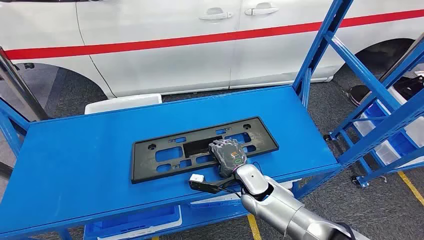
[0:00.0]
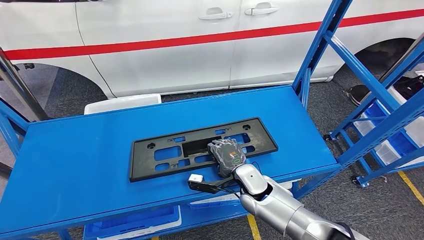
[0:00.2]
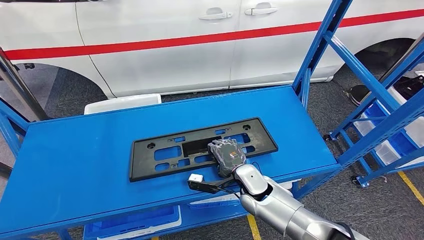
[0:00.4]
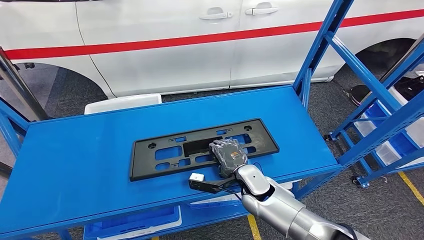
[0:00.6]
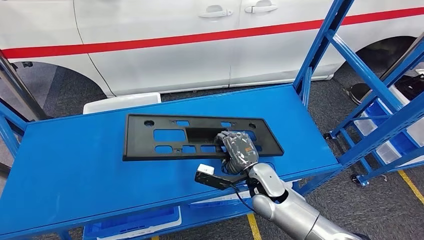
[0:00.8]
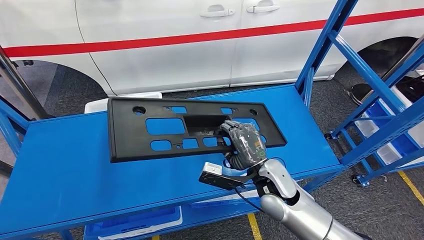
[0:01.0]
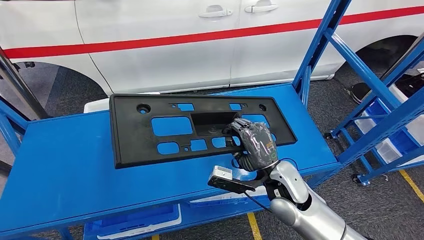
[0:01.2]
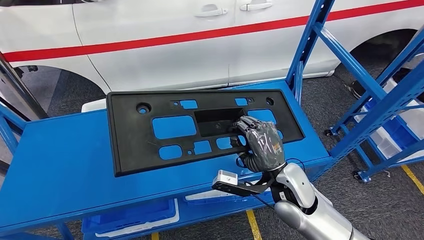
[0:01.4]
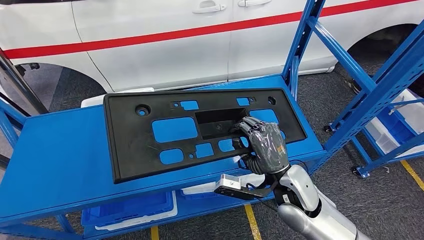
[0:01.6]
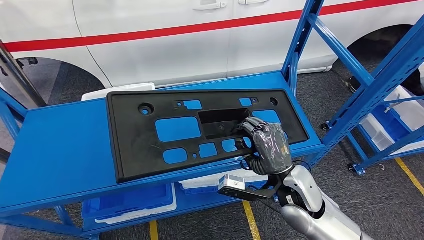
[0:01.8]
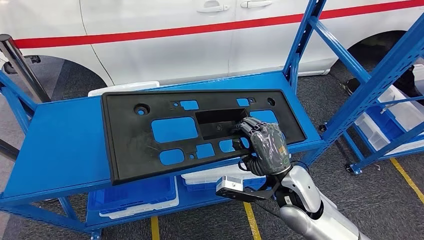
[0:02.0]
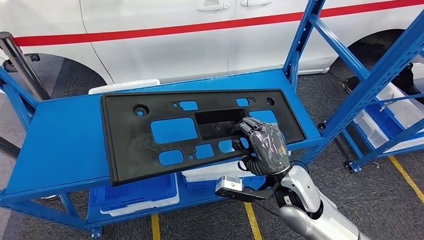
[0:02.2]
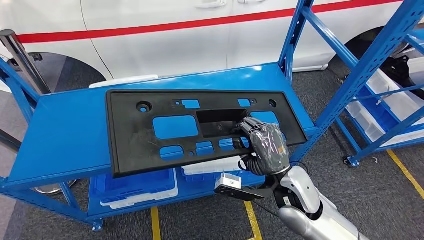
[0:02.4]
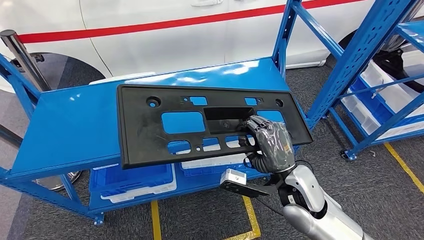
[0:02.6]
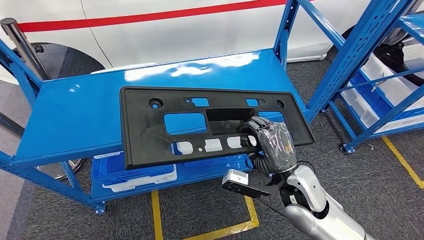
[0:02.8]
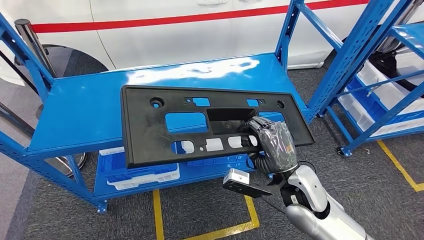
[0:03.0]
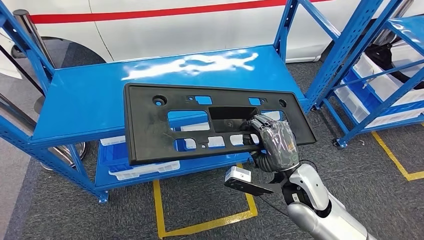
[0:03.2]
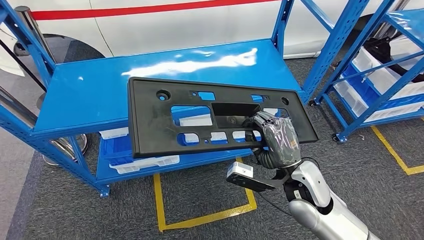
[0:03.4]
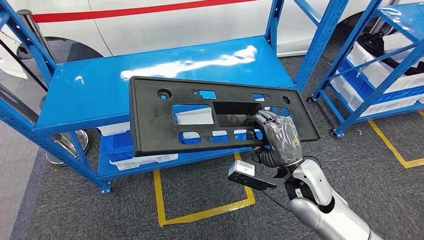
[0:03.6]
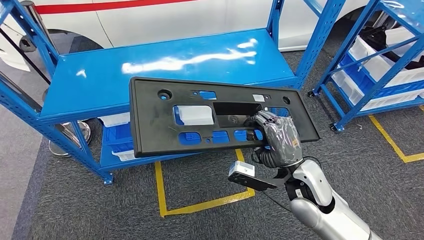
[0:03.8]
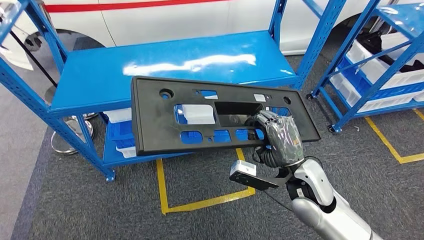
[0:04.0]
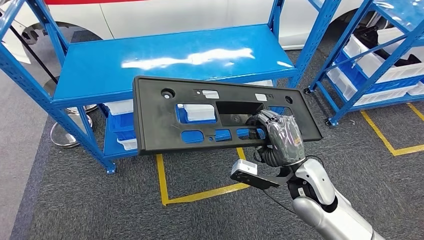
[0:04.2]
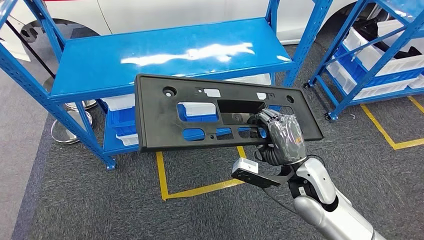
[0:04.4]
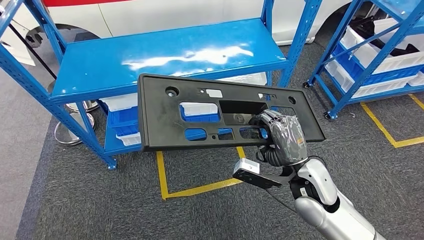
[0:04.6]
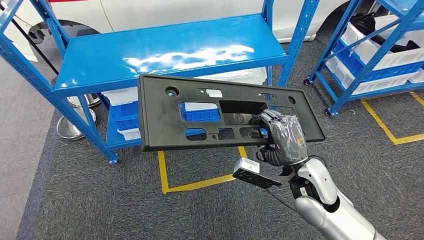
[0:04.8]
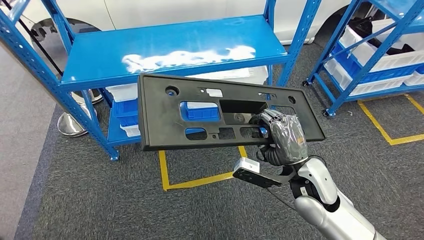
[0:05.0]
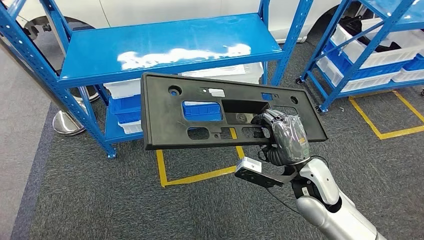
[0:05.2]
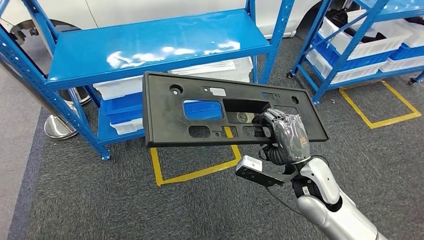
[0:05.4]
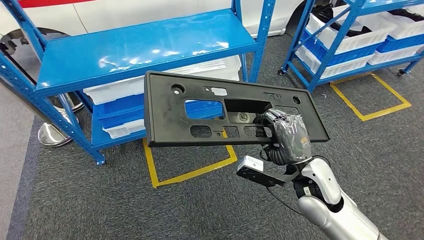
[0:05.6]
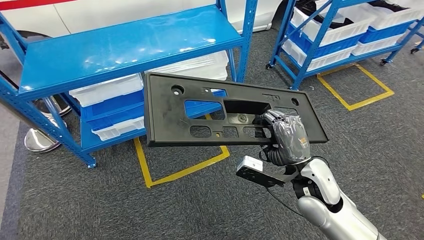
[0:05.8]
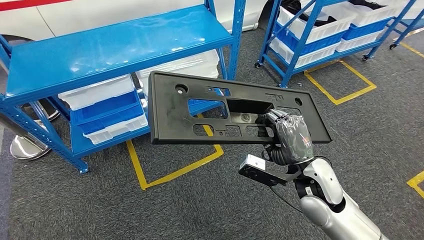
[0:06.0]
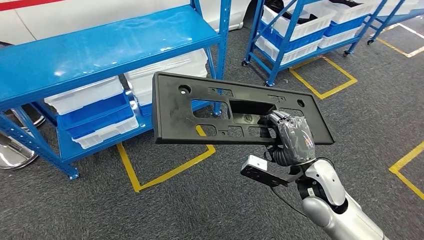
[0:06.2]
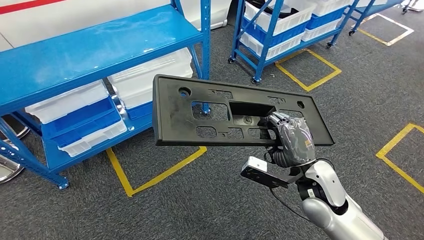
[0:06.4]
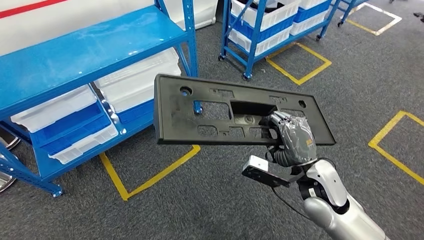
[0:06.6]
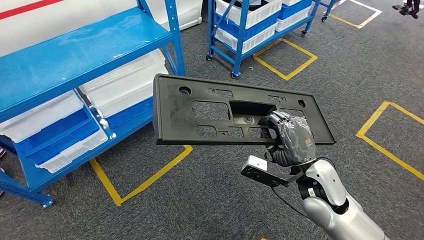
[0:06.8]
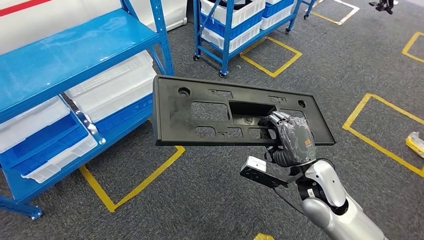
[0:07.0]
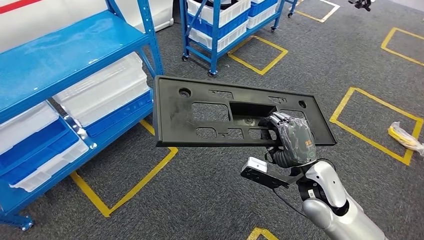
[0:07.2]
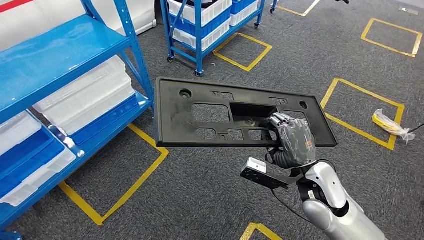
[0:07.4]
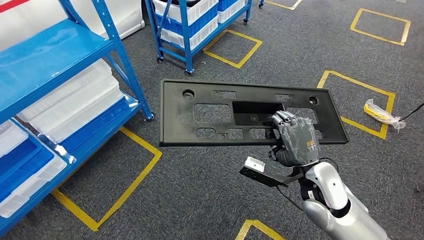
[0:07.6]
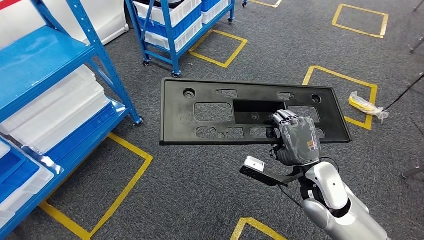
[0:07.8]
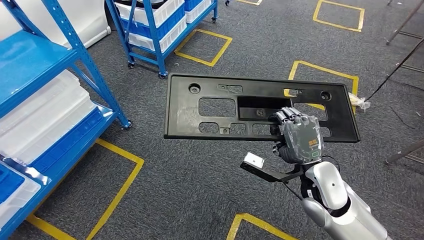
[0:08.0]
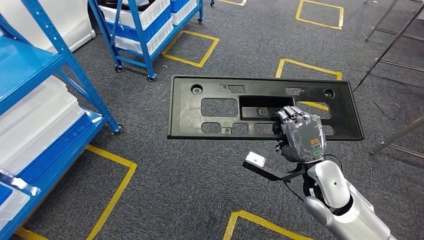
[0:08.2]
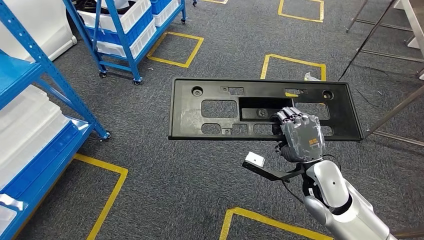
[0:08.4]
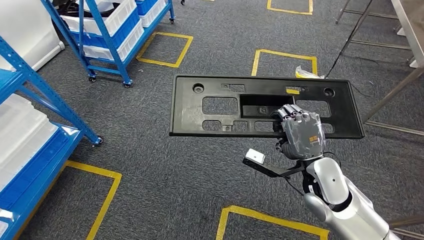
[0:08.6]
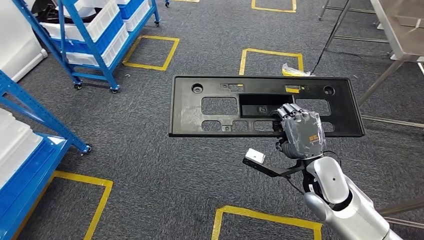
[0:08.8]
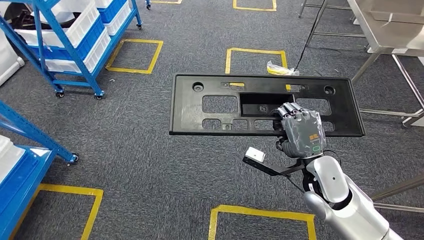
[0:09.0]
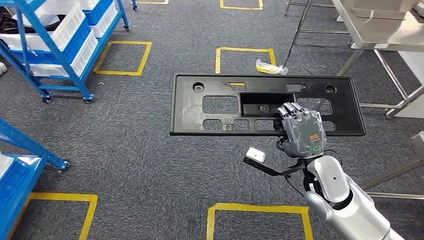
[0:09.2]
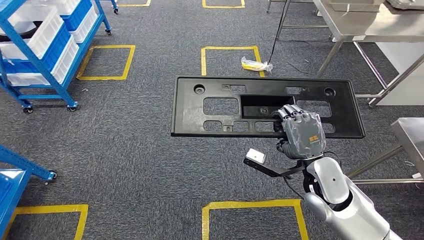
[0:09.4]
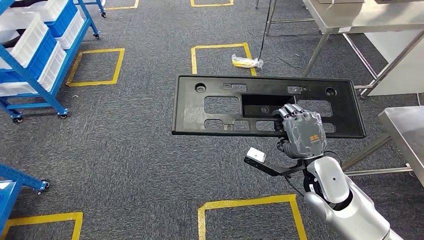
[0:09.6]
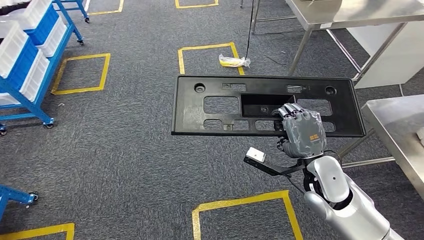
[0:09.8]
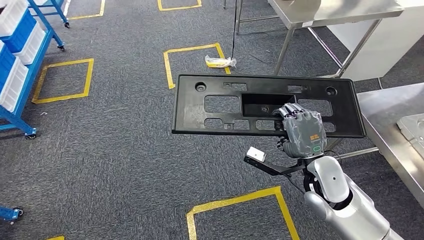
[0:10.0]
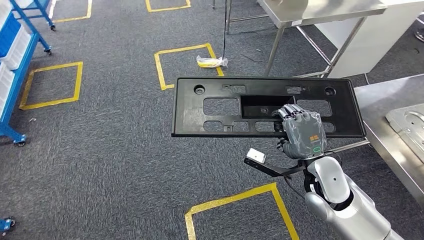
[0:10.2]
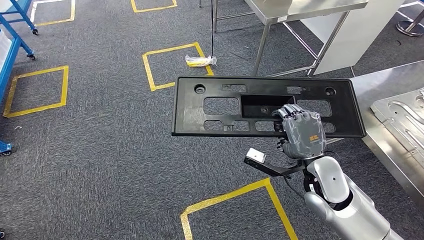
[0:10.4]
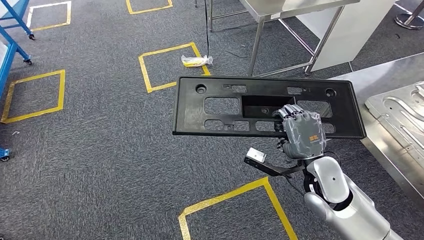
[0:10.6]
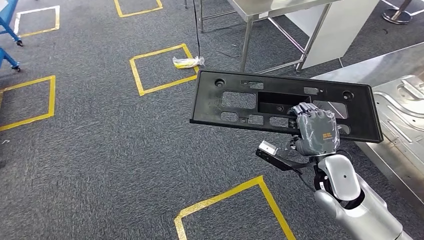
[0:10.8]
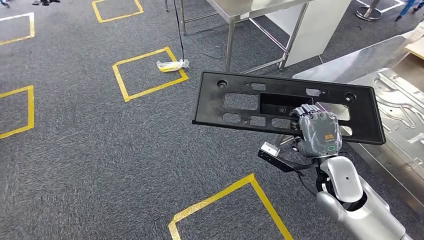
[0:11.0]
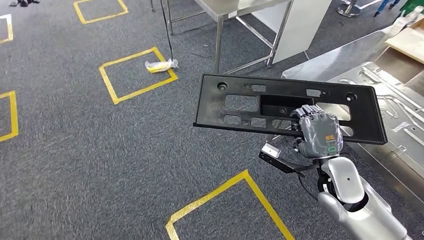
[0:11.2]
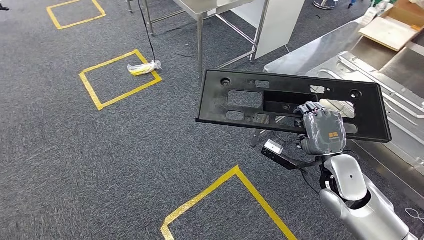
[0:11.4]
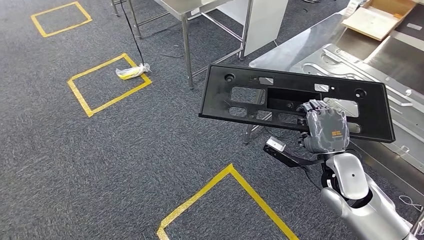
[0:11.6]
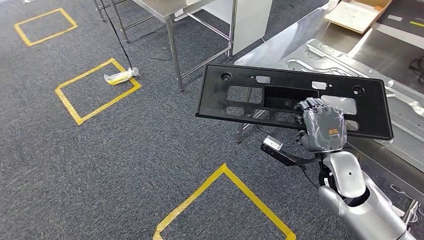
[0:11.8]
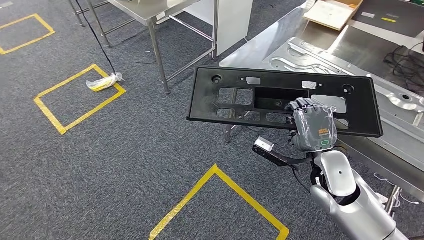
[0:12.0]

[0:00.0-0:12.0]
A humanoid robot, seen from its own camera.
Step, 0:00.0 to 0:04.0: Pick up the large material from the shelf.

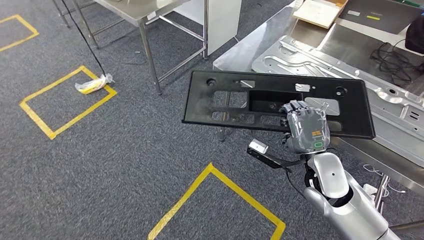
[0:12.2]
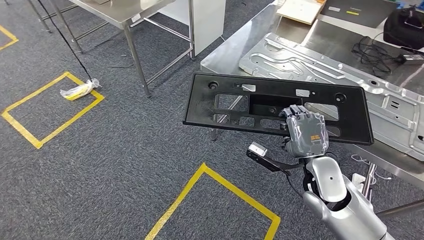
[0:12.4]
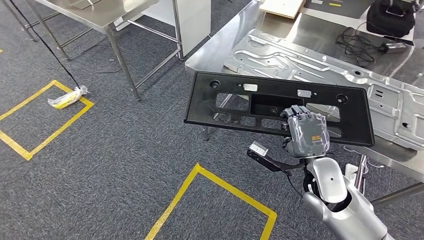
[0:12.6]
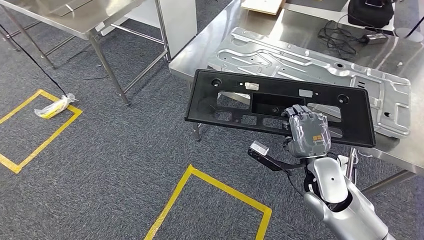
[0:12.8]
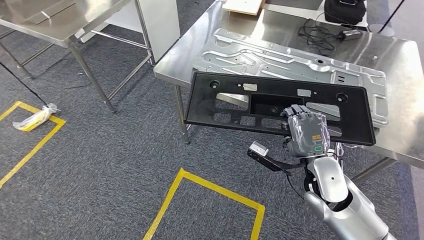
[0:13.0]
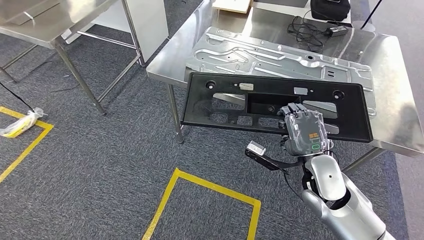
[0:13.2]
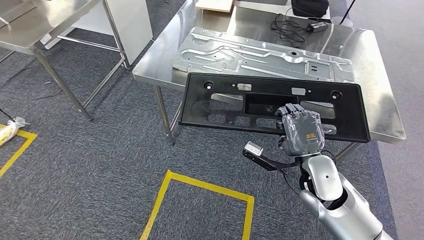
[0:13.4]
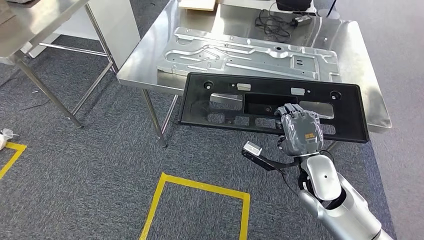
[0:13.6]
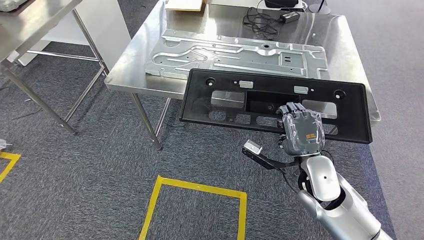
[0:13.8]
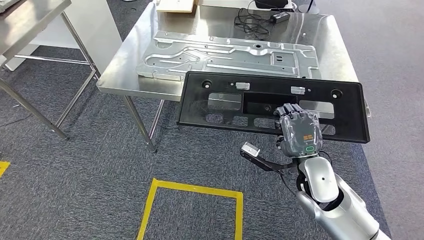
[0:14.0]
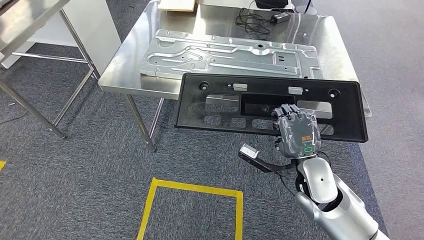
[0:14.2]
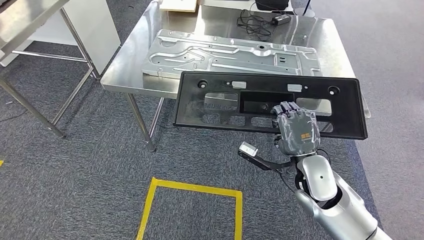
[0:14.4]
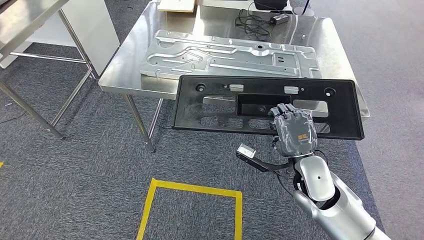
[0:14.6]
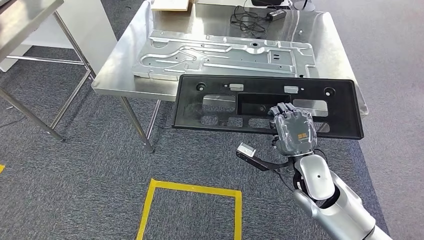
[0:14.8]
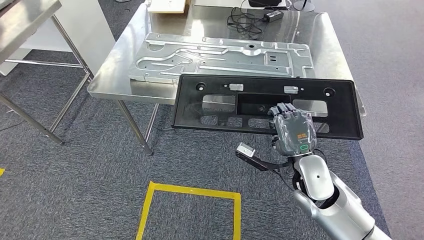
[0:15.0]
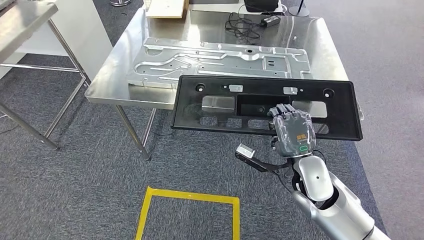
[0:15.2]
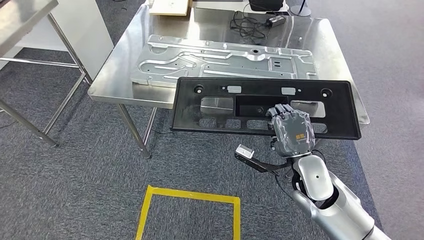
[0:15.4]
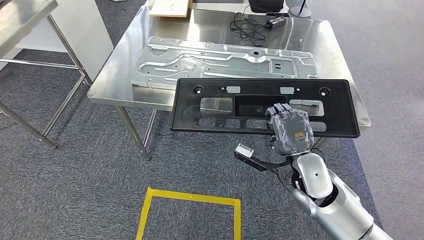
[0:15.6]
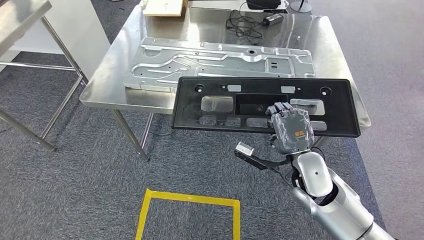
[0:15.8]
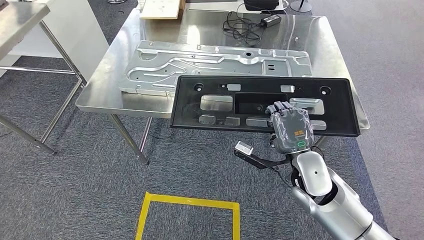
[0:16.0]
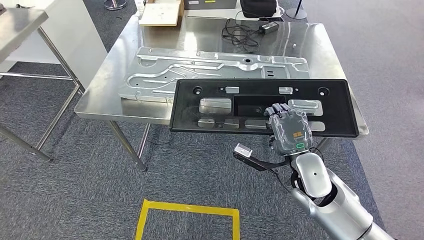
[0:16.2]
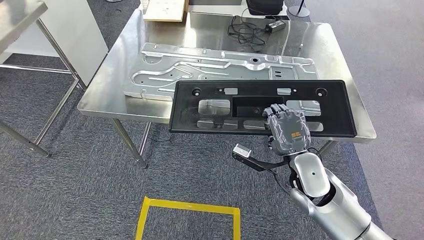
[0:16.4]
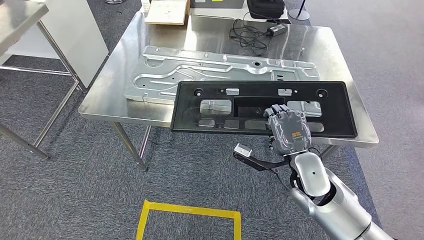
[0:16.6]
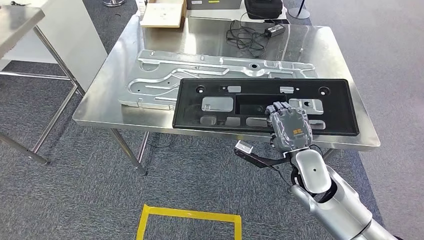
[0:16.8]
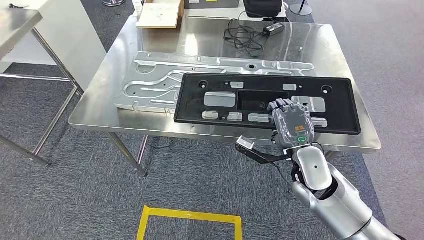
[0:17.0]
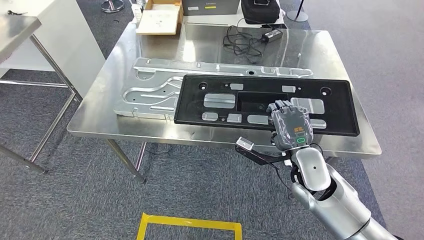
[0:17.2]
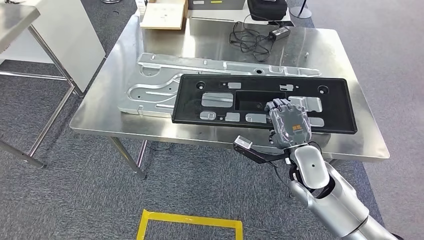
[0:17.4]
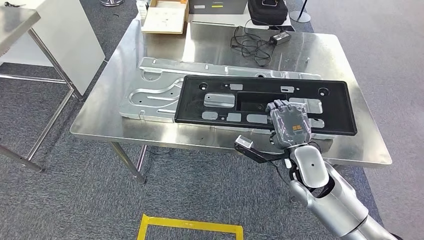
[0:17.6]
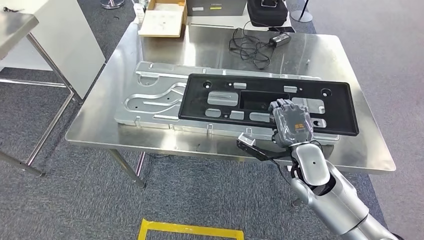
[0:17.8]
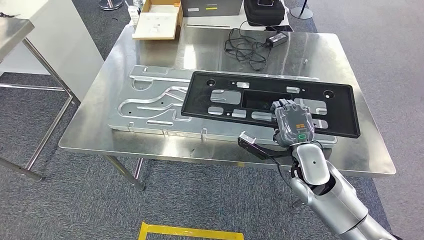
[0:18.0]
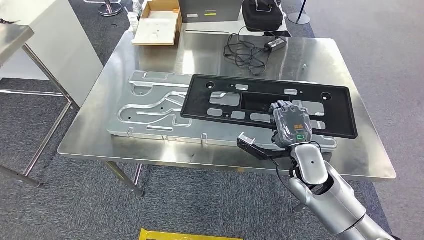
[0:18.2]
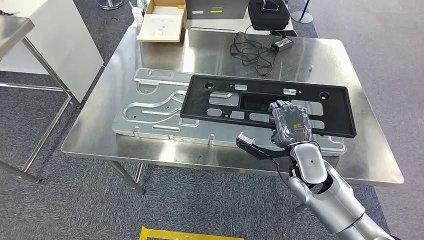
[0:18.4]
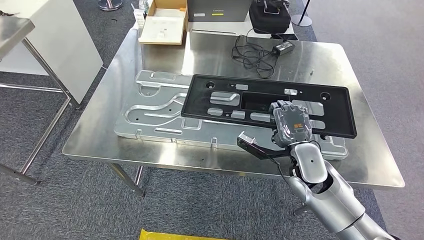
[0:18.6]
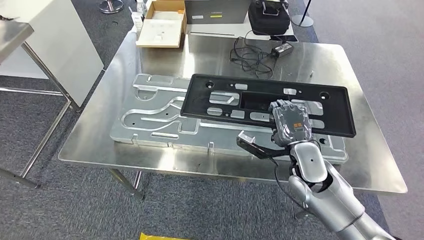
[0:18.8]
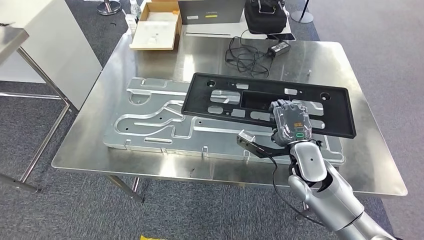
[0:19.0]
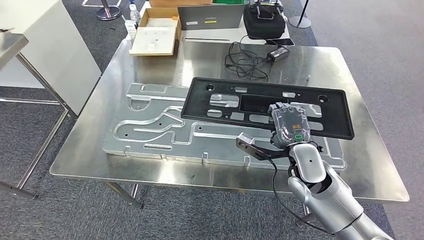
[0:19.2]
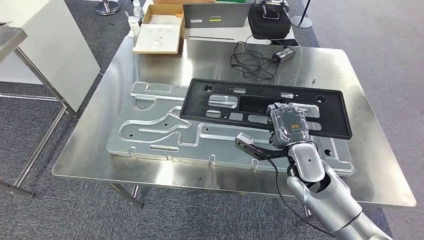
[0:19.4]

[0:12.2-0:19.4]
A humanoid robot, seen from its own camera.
Step, 0:12.2 to 0:14.2: Move the large material to the workbench.
